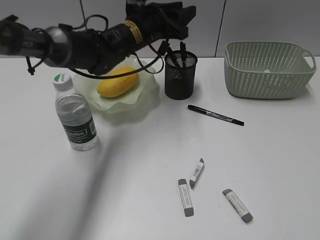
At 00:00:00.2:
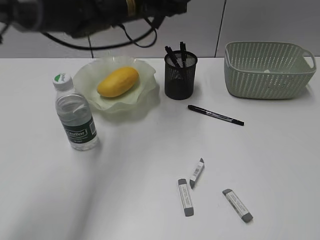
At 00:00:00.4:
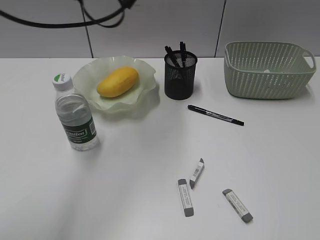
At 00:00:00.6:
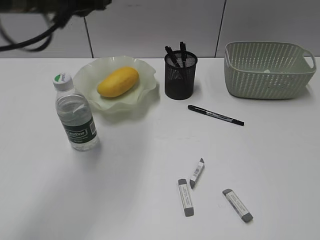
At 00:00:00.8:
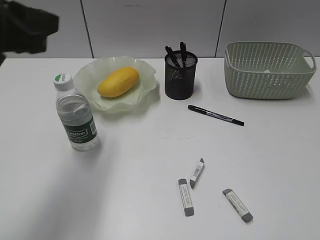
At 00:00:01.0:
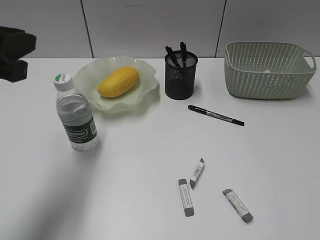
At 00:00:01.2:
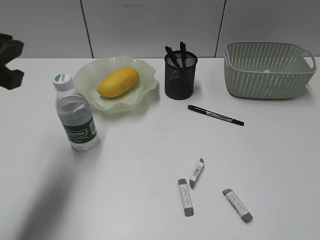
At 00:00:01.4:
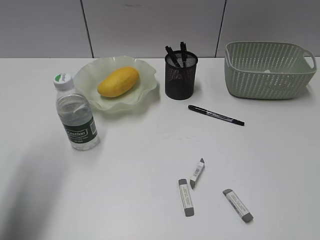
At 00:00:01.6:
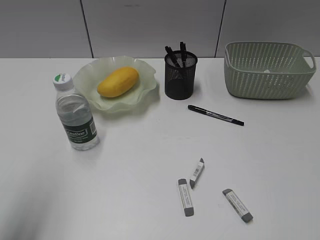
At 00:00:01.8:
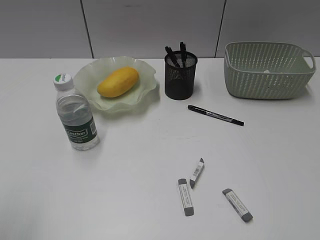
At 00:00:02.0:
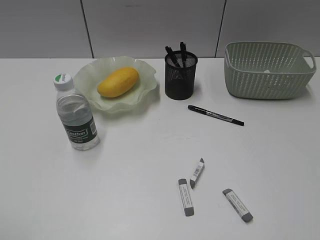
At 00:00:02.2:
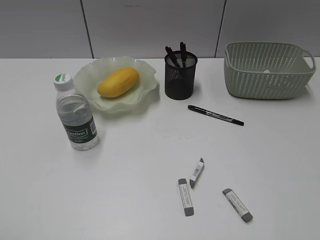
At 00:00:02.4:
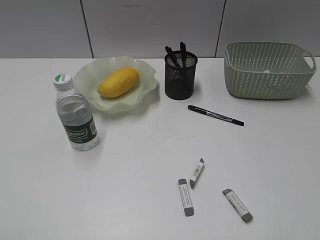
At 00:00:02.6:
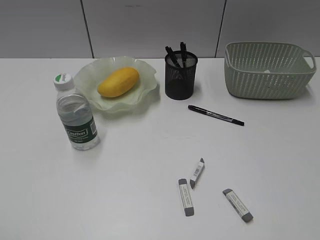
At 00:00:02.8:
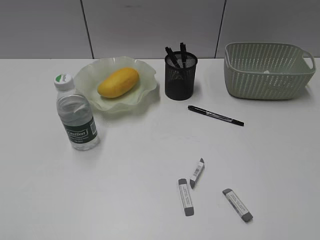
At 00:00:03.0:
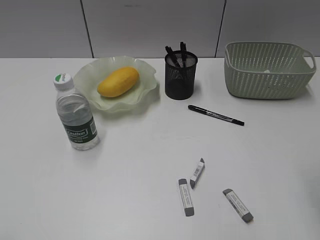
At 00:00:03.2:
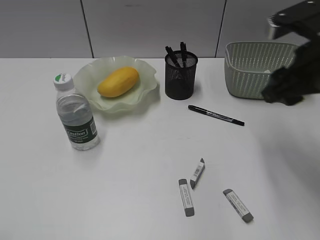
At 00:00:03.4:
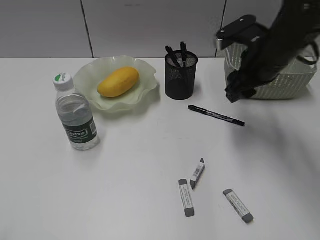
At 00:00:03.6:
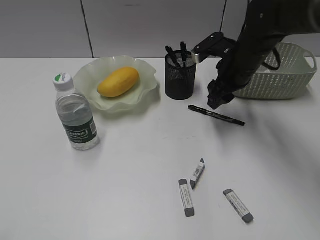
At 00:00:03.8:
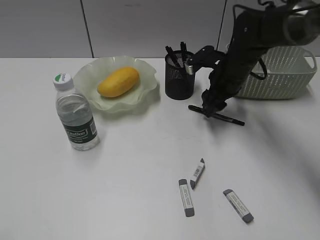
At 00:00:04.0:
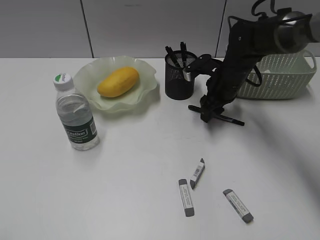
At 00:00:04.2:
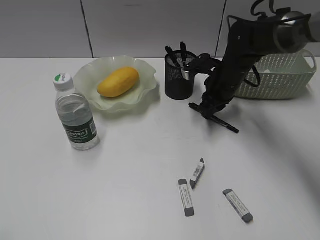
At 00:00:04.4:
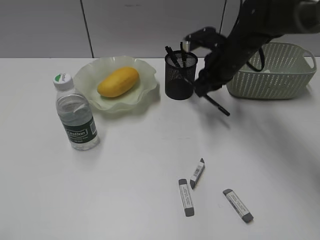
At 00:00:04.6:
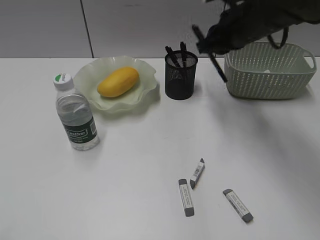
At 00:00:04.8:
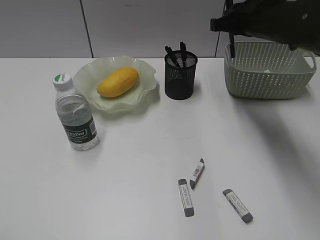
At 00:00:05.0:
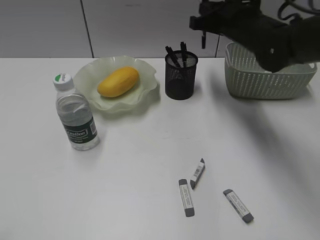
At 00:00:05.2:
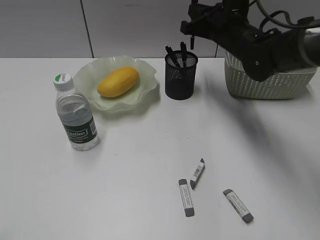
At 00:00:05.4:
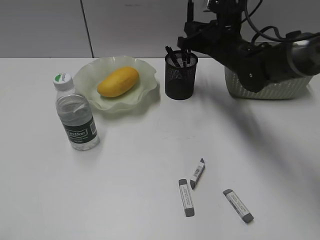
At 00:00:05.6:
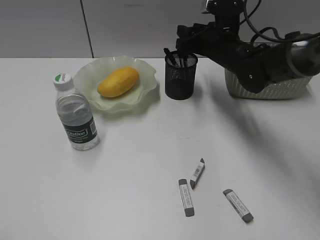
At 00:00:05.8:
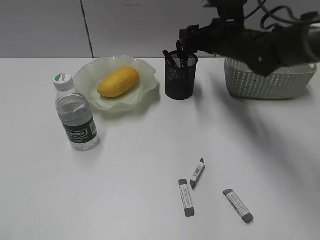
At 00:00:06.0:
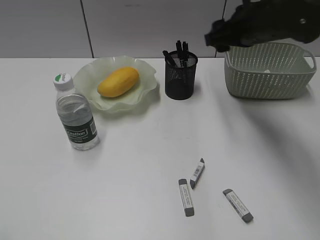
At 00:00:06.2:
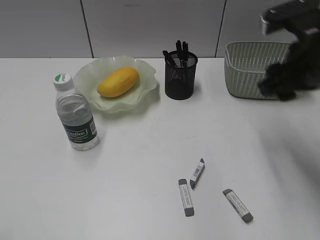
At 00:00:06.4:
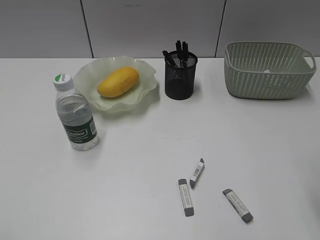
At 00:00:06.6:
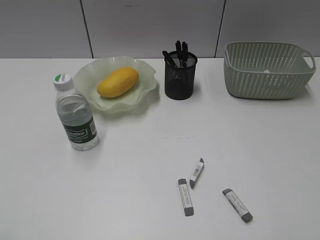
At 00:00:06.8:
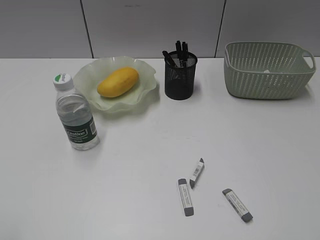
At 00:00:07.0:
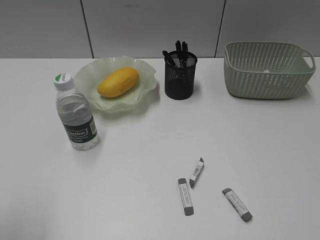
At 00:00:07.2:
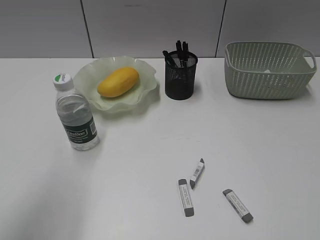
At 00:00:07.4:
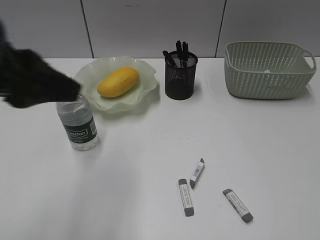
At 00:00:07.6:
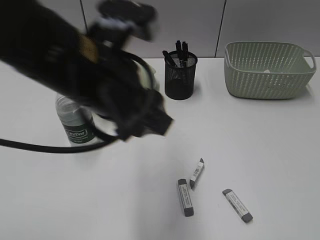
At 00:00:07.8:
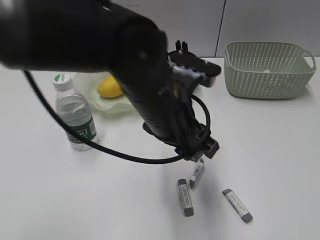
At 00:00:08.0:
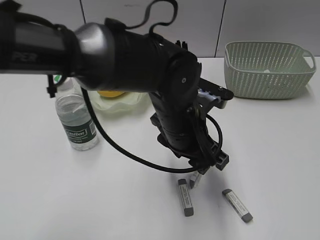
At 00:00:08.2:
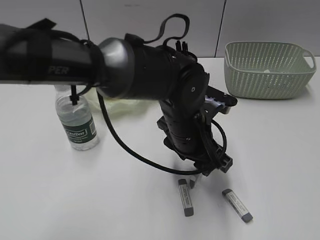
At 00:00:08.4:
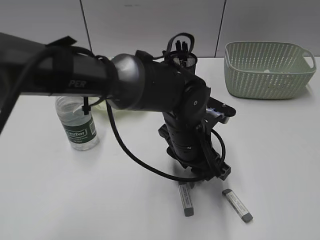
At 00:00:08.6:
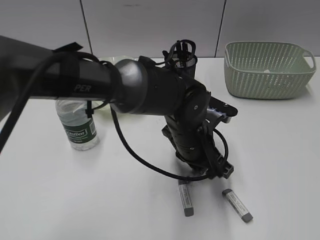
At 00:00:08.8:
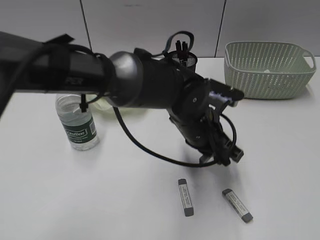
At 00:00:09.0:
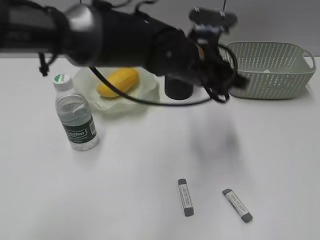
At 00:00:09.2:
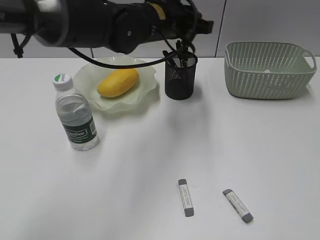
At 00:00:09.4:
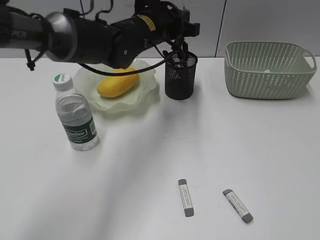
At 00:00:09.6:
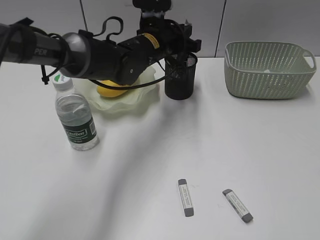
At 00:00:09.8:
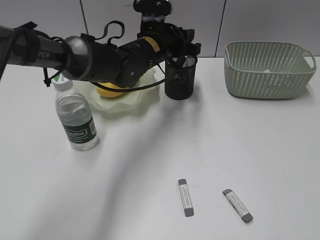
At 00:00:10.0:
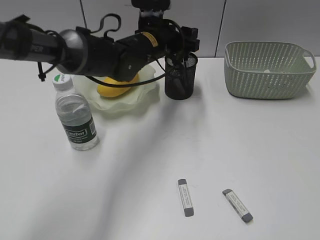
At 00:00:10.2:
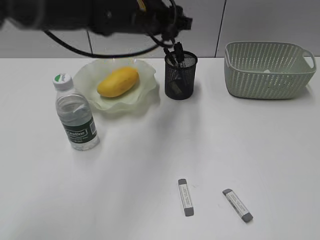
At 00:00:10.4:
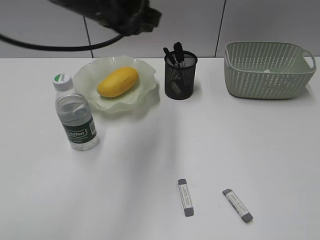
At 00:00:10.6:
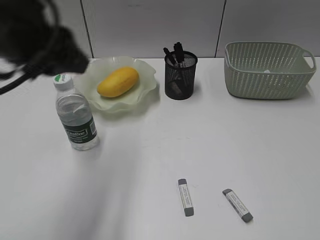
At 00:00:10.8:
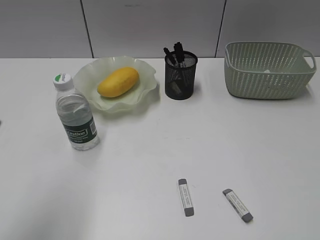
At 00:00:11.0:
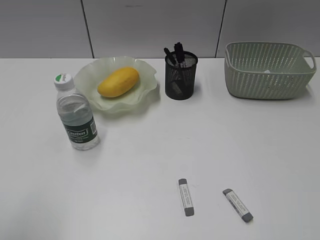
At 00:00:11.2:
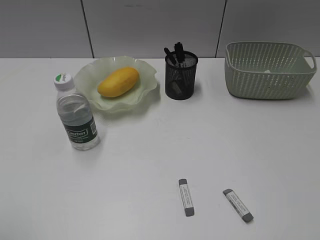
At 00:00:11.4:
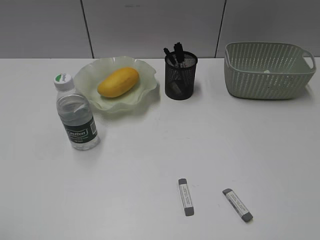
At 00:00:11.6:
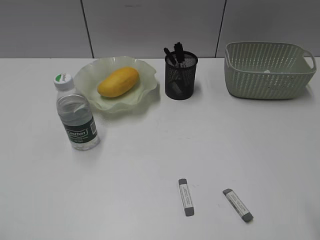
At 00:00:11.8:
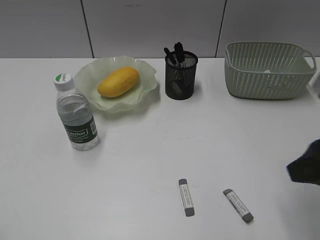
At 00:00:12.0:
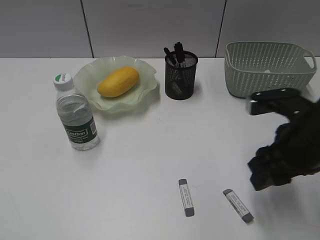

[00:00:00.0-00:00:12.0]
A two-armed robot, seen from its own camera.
Step, 00:00:00.0 to 00:00:04.2: Grasp the black pen with right gripper.
Step, 00:00:04.4 to 00:00:05.8: Place the black pen in pen holder with right gripper.
Step, 00:00:06.0 to 00:00:08.6: Grasp the eraser with left gripper.
Step, 00:00:08.8 to 00:00:10.0: Place the eraser in pen holder with left gripper.
00:00:00.0 to 00:00:01.6: The left gripper moves backward and to the left, roughly 40 cm.
00:00:01.6 to 00:00:03.0: The left gripper travels backward by about 15 cm, and opens.
00:00:03.0 to 00:00:04.4: The right gripper shifts about 30 cm forward, to the left and downward, and closes up.
00:00:04.4 to 00:00:06.0: The right gripper moves up and down over some 10 cm, changing direction 2 times, and opens.
00:00:06.0 to 00:00:07.6: The right gripper moves backward, approximately 40 cm. The left gripper shifts about 35 cm to the right and forward.
00:00:07.6 to 00:00:09.0: The left gripper moves forward, to the right and downward, roughly 15 cm, and closes its fingers.
00:00:09.0 to 00:00:10.4: The left gripper heads to the left and upward, covering approximately 15 cm, and opens its fingers.
00:00:10.4 to 00:00:12.0: The left gripper heads backward and to the left, covering approximately 40 cm. Meanwhile the right gripper travels forward, to the left and downward by some 30 cm.

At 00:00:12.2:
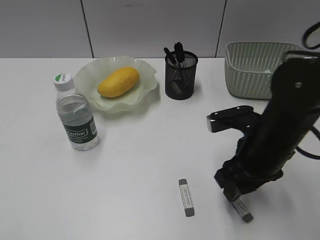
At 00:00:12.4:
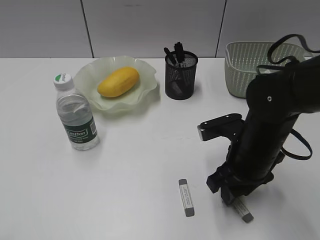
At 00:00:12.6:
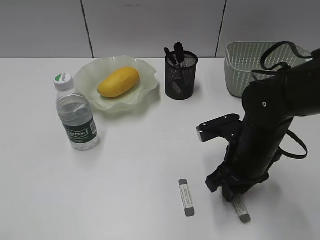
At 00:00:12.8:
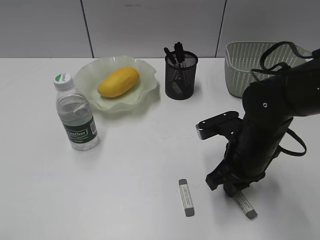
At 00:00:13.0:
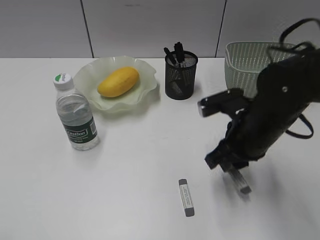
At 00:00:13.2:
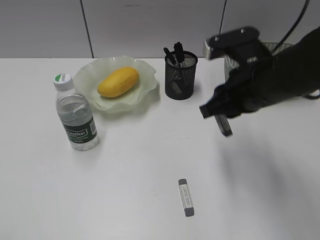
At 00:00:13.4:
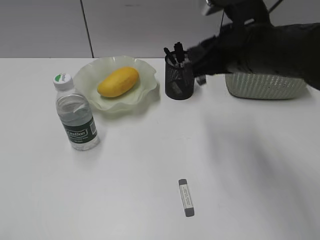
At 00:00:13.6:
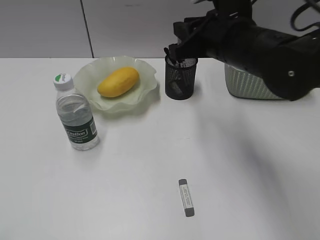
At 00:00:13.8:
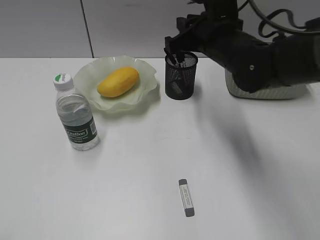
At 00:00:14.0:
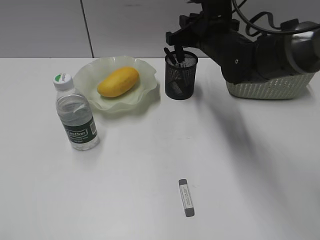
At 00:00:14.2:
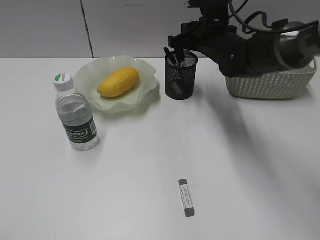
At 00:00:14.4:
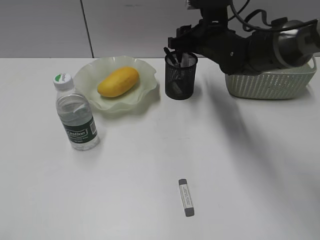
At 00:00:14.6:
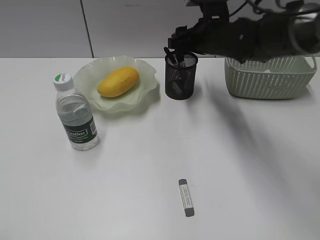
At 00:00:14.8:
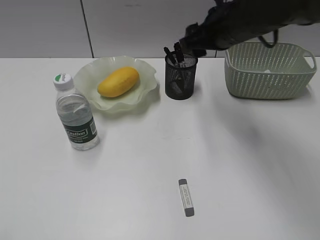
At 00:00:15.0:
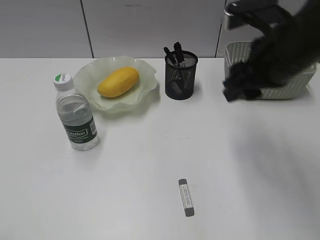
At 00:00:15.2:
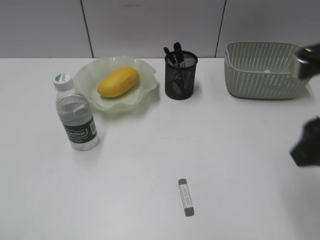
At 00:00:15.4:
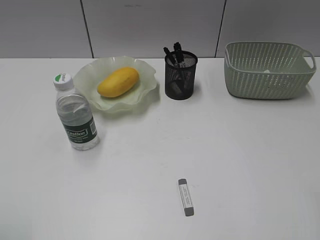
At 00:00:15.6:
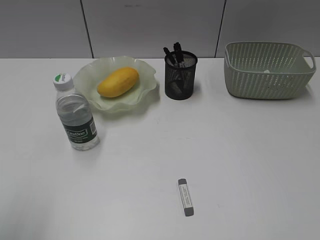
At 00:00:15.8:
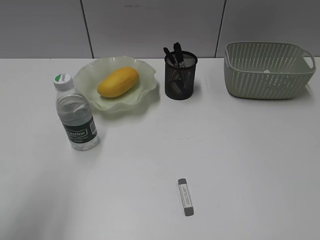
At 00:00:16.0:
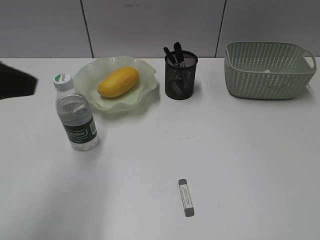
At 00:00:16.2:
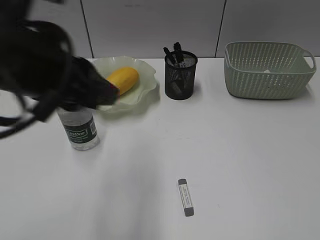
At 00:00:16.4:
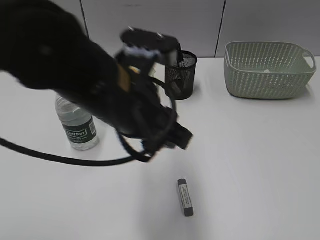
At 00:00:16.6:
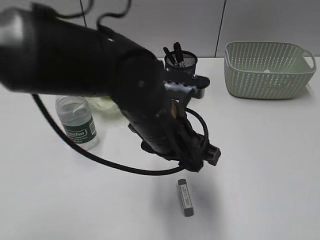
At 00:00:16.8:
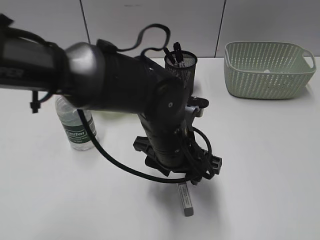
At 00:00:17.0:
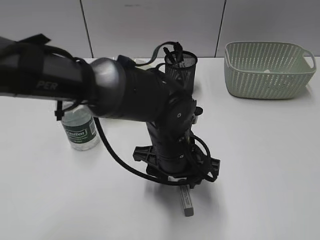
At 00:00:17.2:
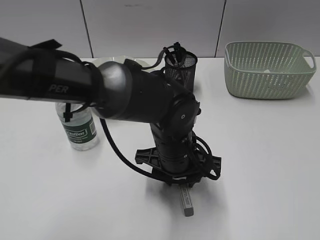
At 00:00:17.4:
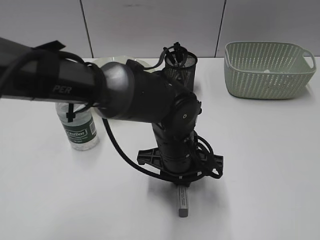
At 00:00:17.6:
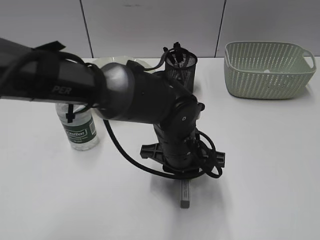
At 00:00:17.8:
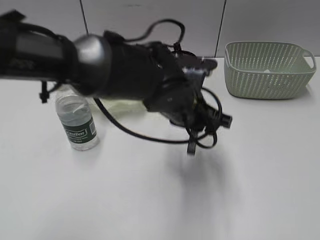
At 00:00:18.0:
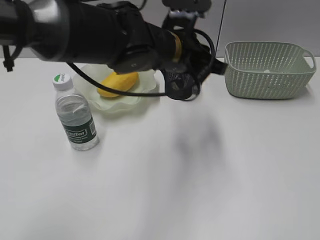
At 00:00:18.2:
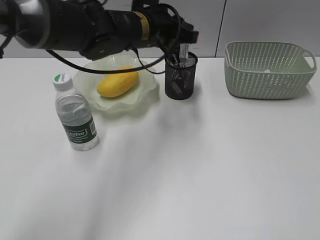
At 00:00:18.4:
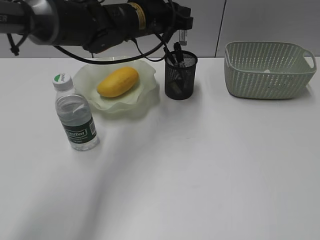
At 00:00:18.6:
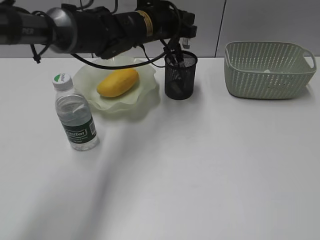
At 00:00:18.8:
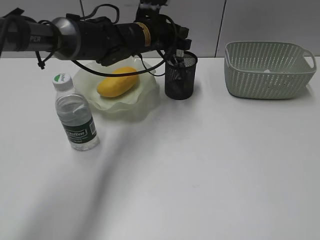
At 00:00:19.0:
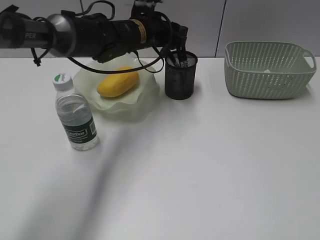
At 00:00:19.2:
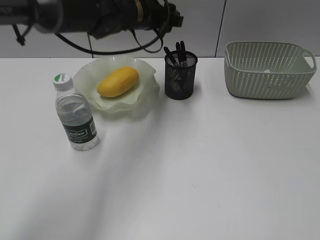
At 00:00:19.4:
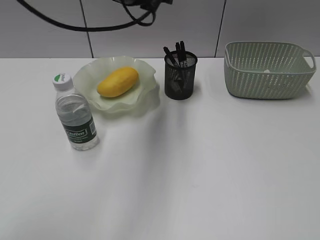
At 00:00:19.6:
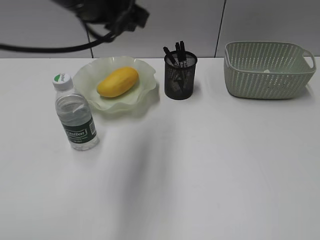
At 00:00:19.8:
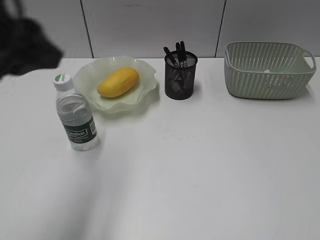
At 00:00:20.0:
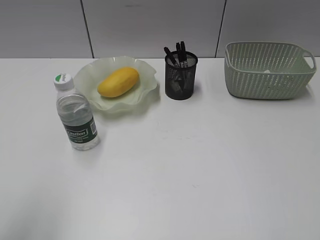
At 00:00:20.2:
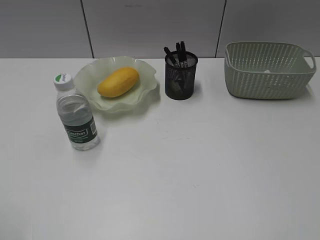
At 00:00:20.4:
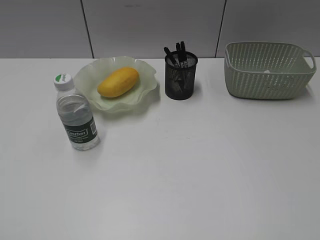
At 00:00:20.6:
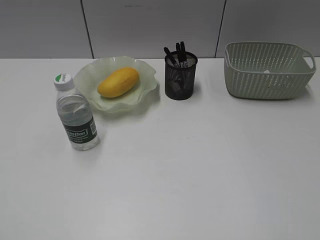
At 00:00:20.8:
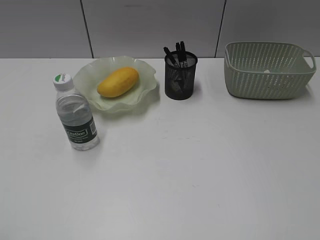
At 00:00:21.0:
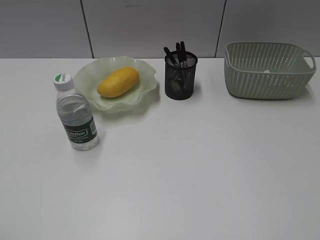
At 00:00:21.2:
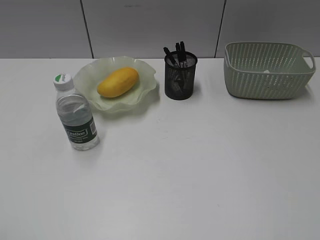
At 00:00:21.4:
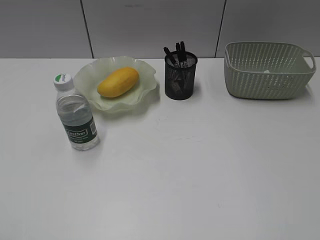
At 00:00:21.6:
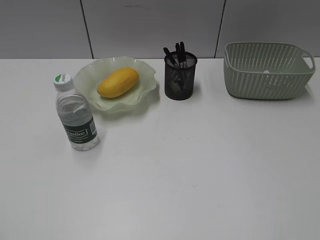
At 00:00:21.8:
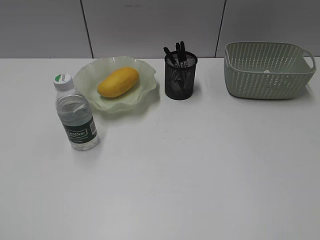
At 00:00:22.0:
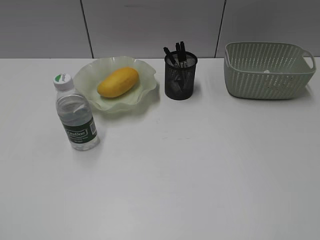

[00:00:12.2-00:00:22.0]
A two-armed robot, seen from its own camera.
Step, 00:00:13.0 to 00:00:14.6: Place the eraser in pen holder with right gripper.
Step, 00:00:14.8 to 00:00:17.4: Grasp the eraser with left gripper.
Step, 00:00:17.6 to 00:00:19.0: Place the eraser in pen holder with left gripper.
00:00:12.2 to 00:00:13.6: The right gripper shifts some 15 cm upward and forward, and closes its fingers.
00:00:13.6 to 00:00:15.0: The right gripper is displaced to the right and backward by about 10 cm, and opens up.
00:00:15.0 to 00:00:16.4: The left gripper moves to the right and forward, roughly 35 cm. The right gripper is displaced backward and to the right by some 30 cm.
00:00:16.4 to 00:00:17.8: The left gripper shifts about 15 cm forward, to the right and downward, and closes up.
00:00:17.8 to 00:00:19.2: The left gripper heads forward, to the left and upward, covering approximately 20 cm, and opens its fingers.
00:00:19.2 to 00:00:20.6: The left gripper heads backward and to the left, covering approximately 50 cm.
